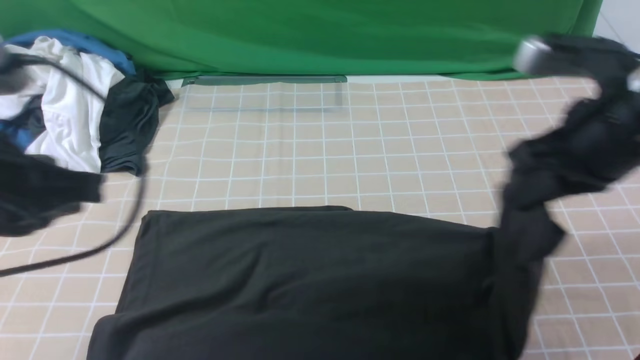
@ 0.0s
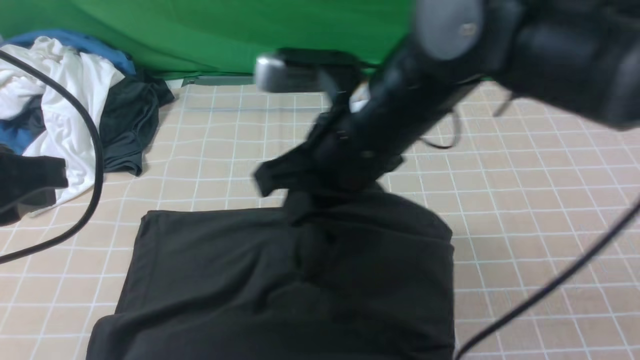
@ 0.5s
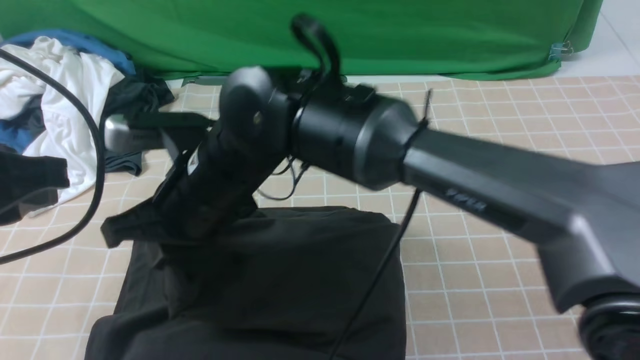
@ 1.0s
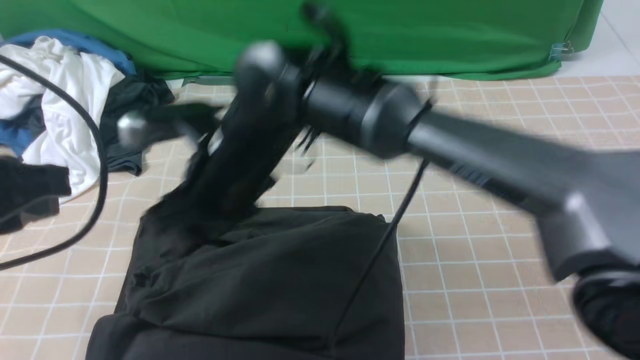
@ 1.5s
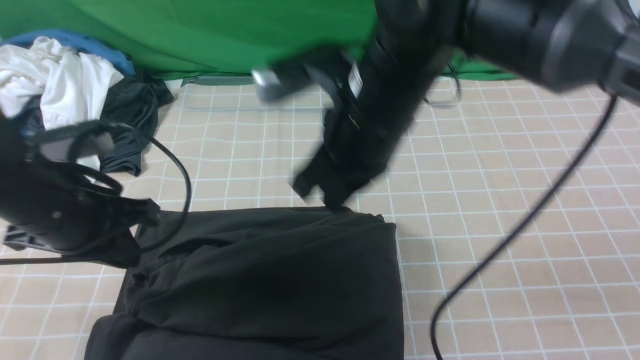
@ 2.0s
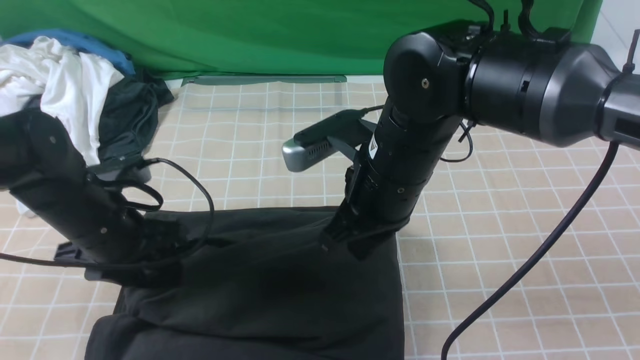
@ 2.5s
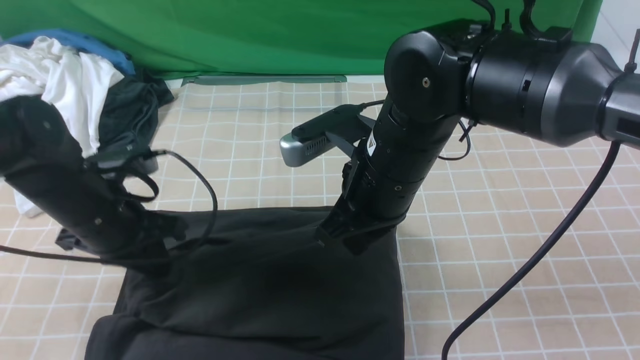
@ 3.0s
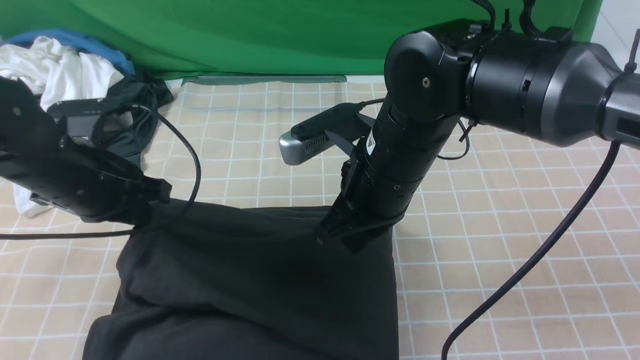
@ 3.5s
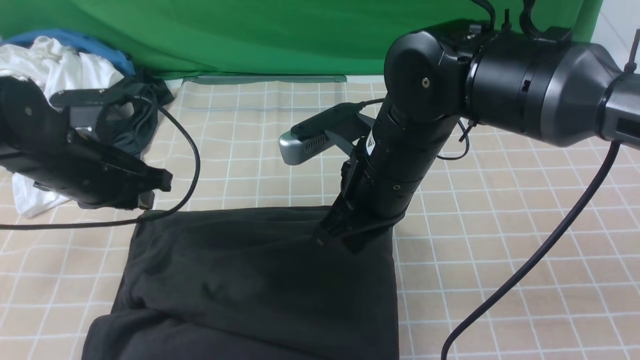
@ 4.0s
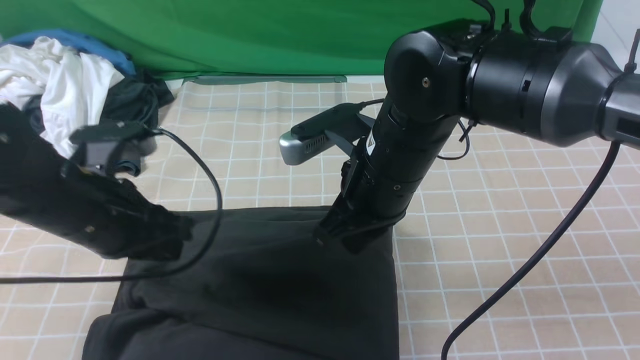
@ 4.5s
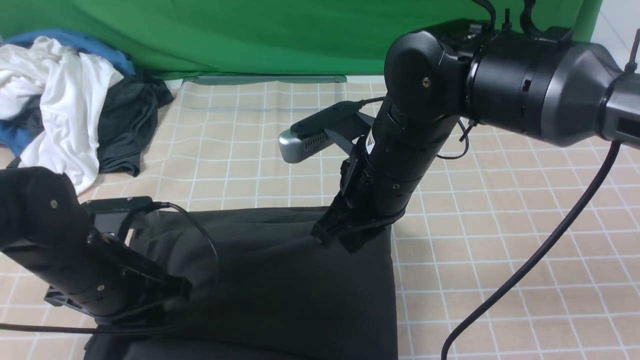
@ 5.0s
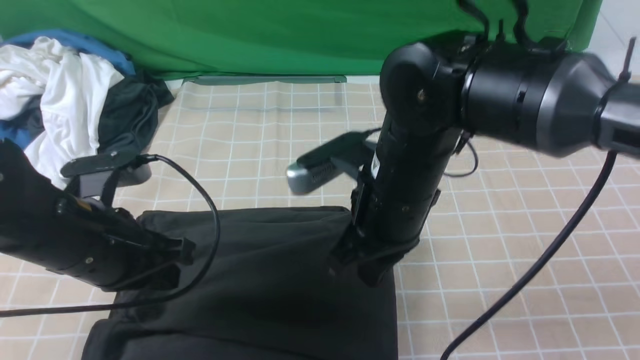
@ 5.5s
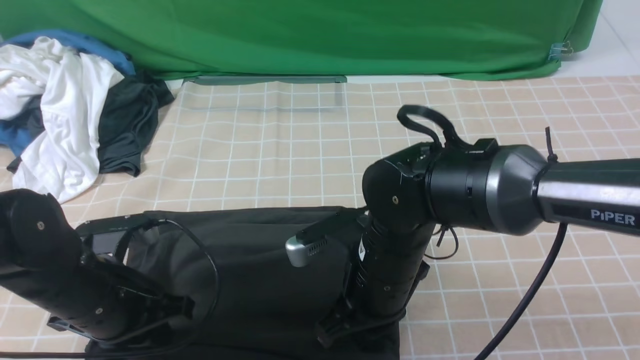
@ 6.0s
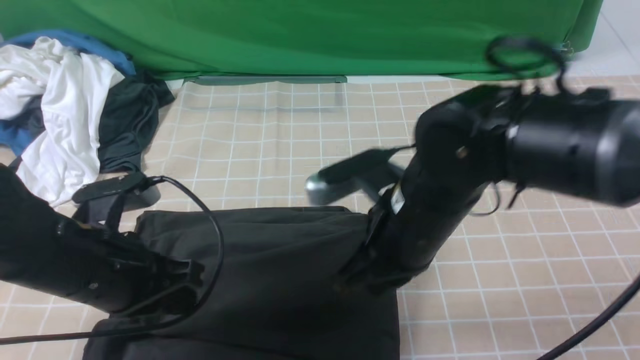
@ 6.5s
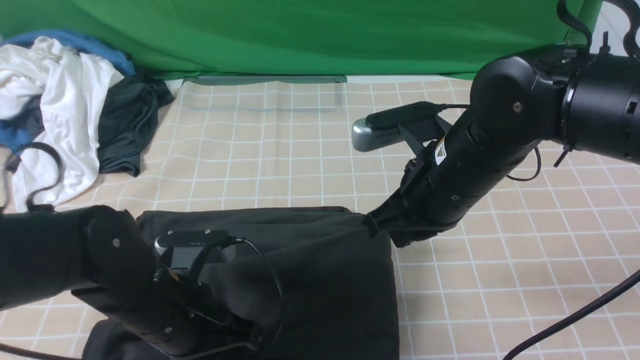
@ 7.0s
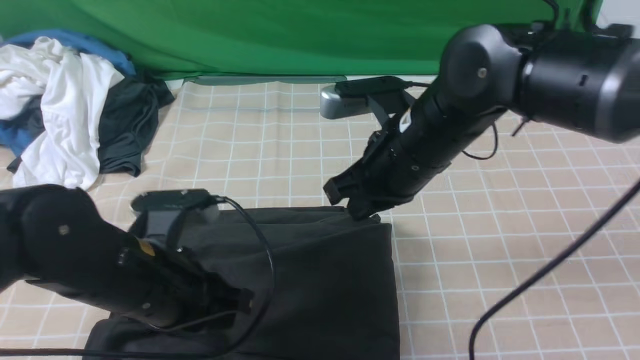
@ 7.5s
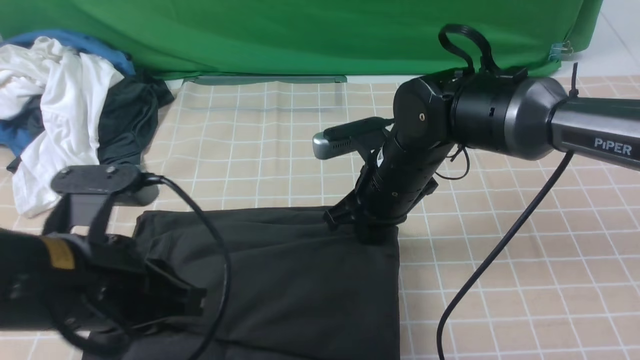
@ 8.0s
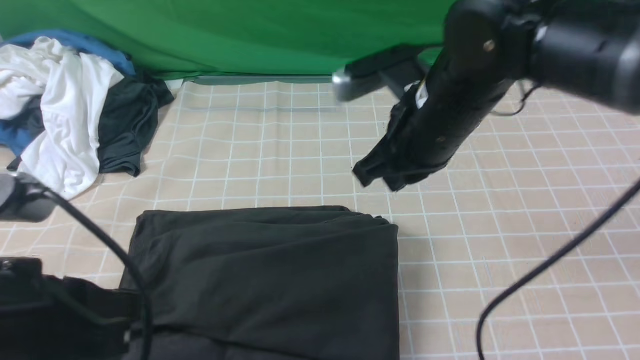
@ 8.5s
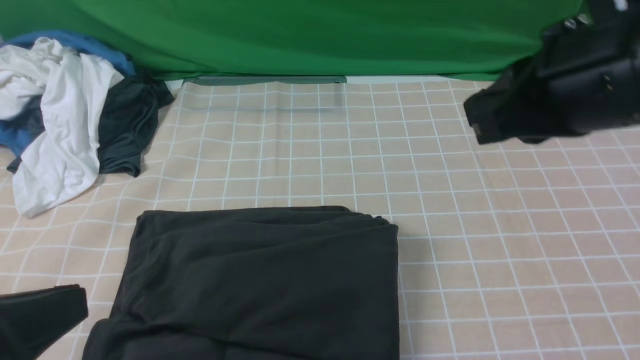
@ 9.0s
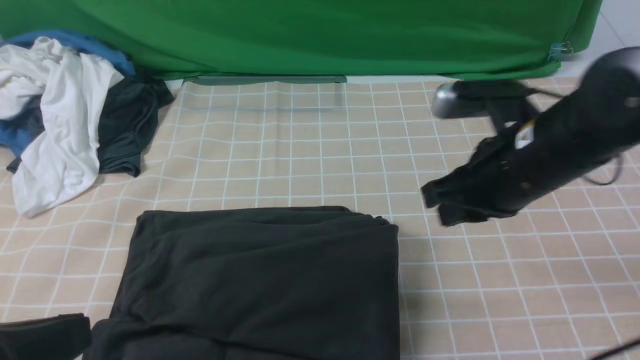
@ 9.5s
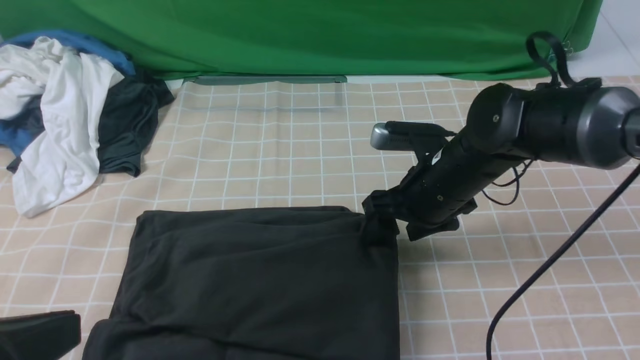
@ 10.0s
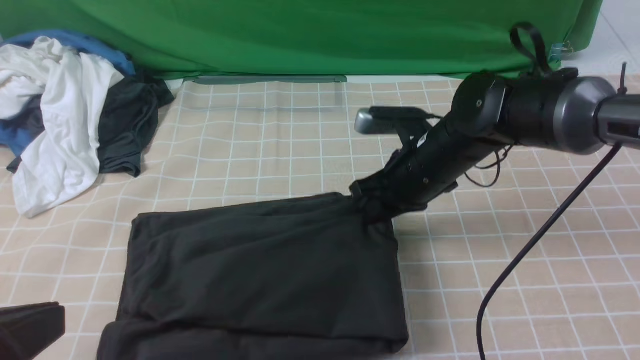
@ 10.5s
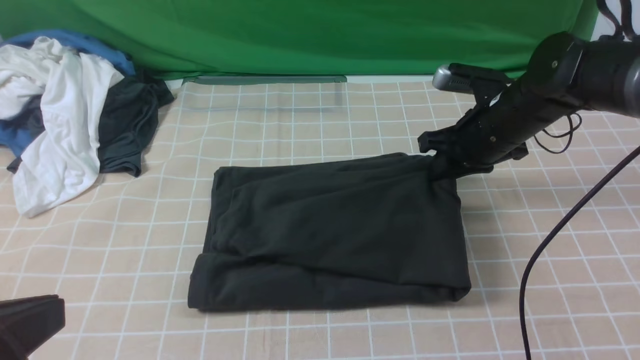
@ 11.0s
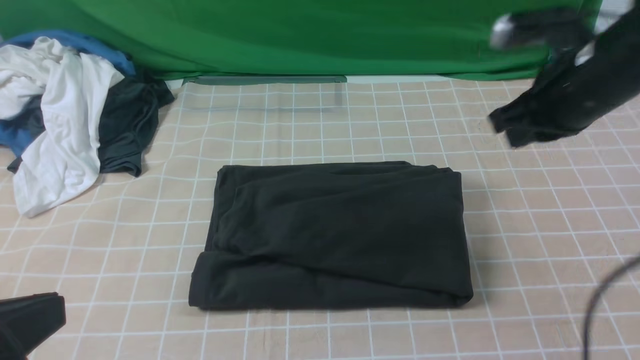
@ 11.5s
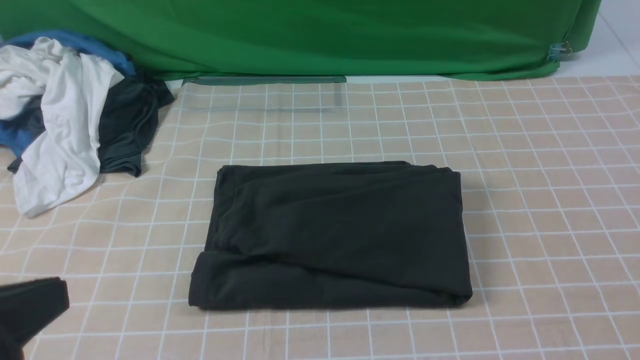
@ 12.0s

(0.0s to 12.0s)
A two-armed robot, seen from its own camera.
0.0s - 2.0s: The left gripper goes approximately 10 cm downward and forward. Meanwhile the right gripper moves to the left, roughly 15 cm, and opens, then closes once more.
2.0s - 4.0s: The left gripper opens, then closes once more.
4.0s - 6.0s: The left gripper travels backward by some 10 cm; the right gripper goes some 10 cm downward.
6.0s - 8.0s: The right gripper is displaced forward by some 10 cm; the left gripper shifts some 10 cm upward and backward.
8.0s - 10.0s: The right gripper is displaced to the right by approximately 5 cm, reaches approximately 15 cm upward, then returns, and opens its fingers. Meanwhile the left gripper shifts roughly 15 cm backward, upward and to the left.
10.0s - 12.0s: The right gripper moves backward, upward and to the right, about 35 cm, and closes up.

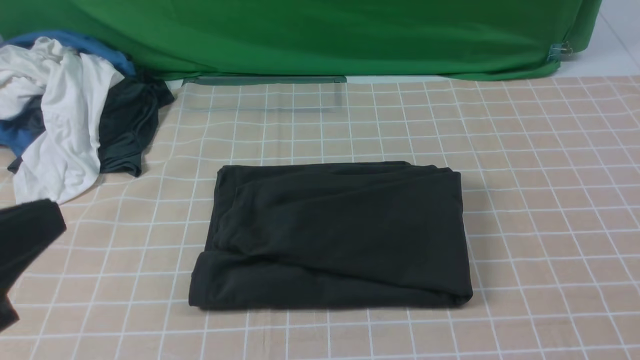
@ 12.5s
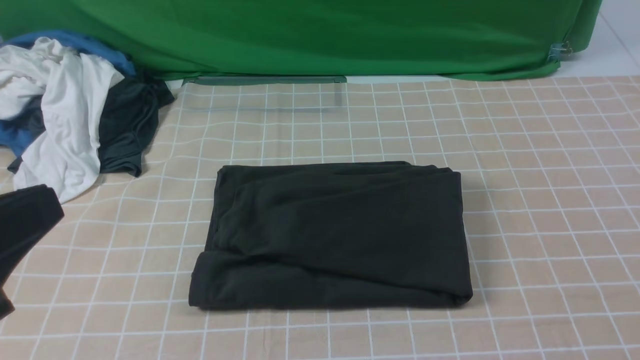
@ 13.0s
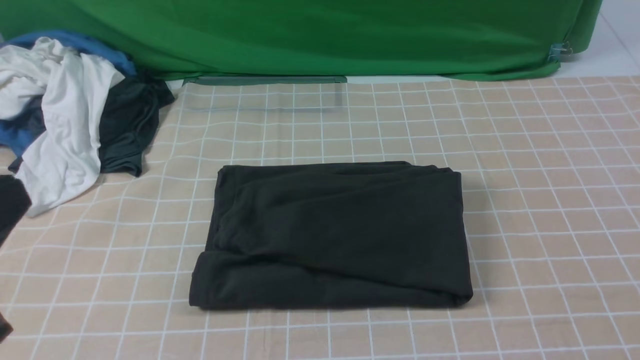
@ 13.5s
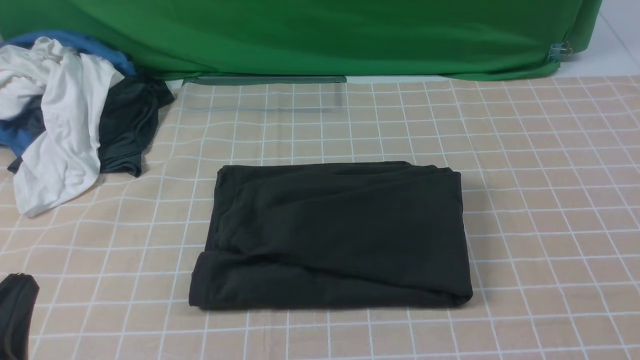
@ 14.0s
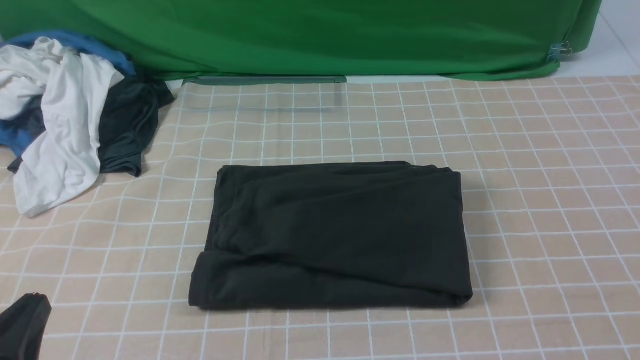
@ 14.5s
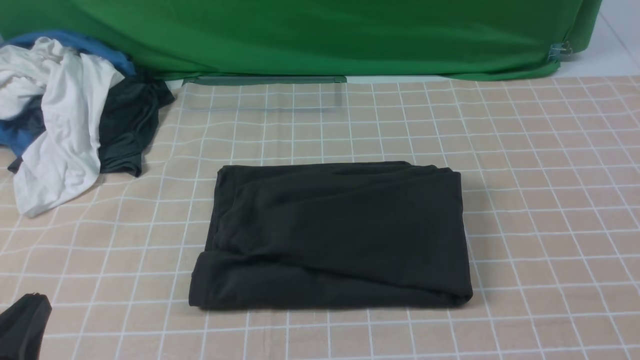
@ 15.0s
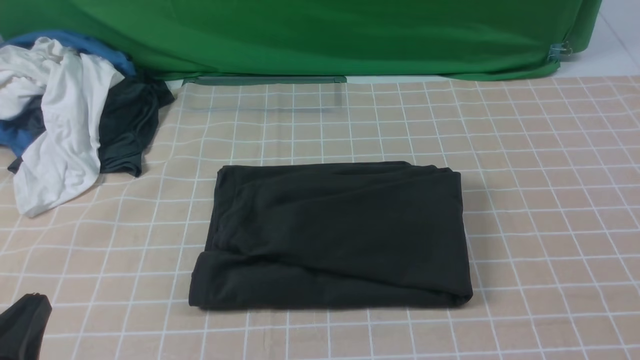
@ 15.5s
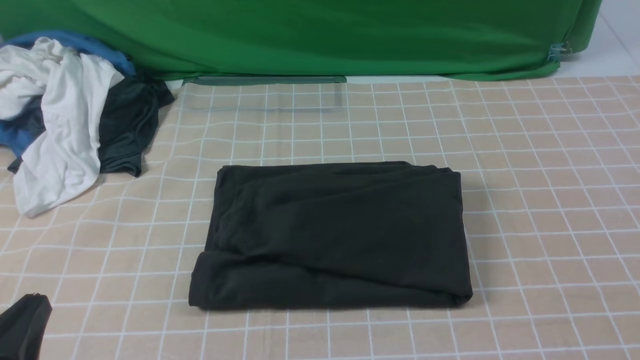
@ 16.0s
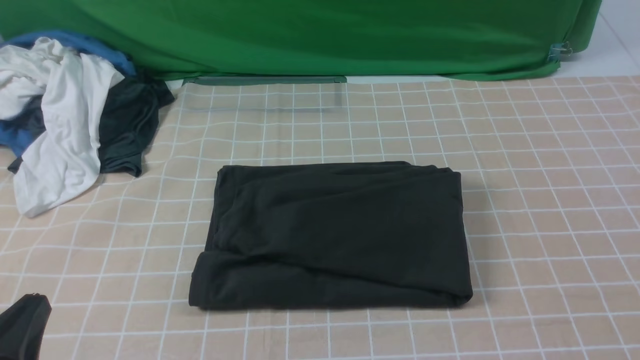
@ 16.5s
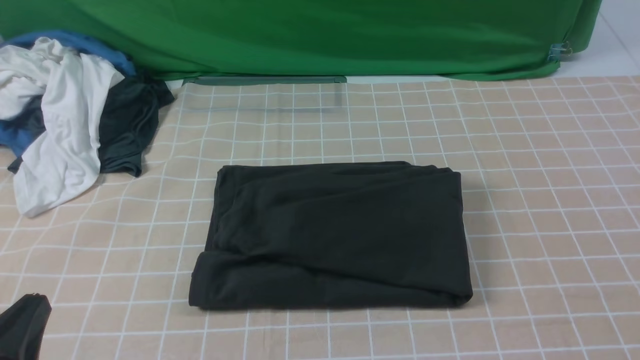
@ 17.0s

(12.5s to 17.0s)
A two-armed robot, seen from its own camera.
12.5s - 14.5s: The left gripper travels downward by roughly 15 cm.

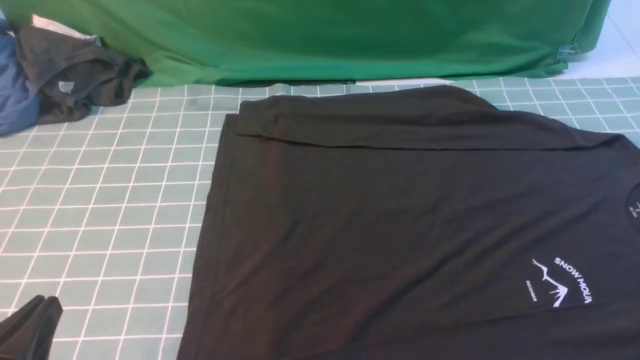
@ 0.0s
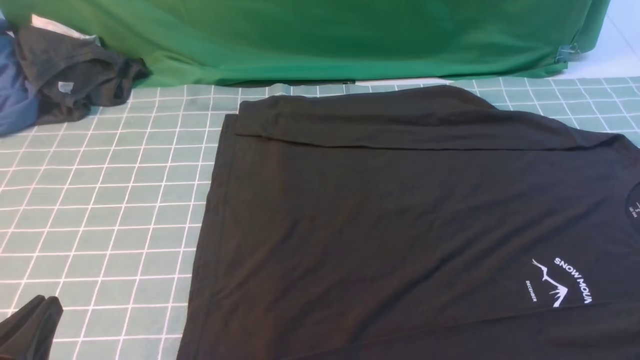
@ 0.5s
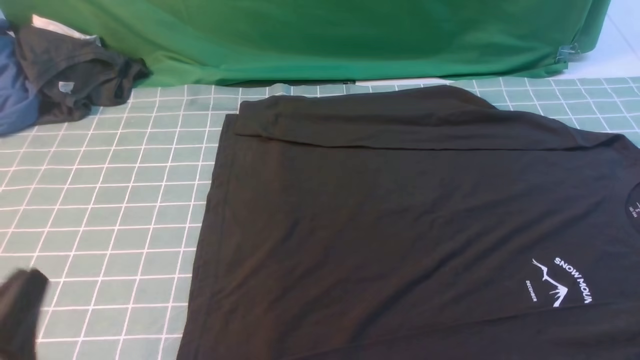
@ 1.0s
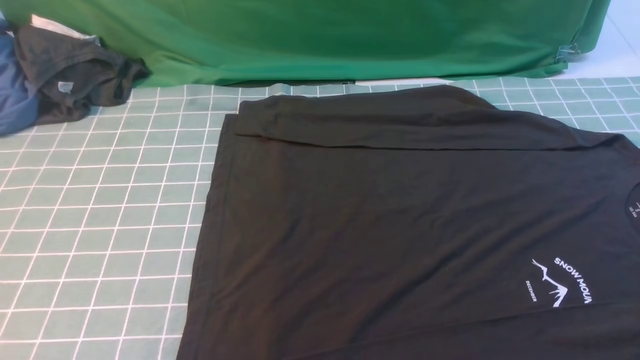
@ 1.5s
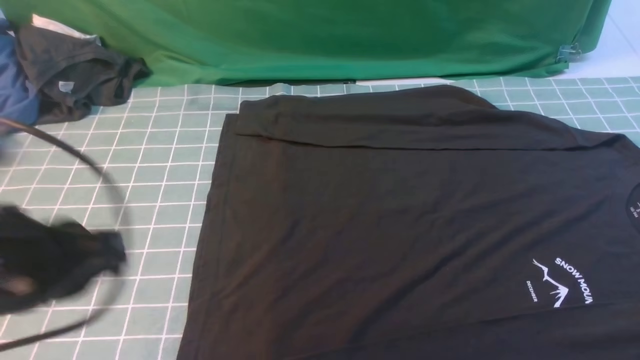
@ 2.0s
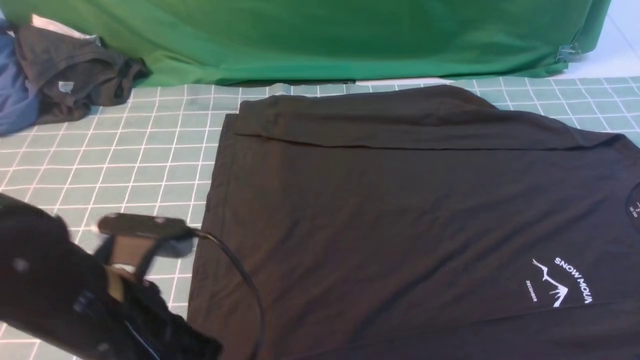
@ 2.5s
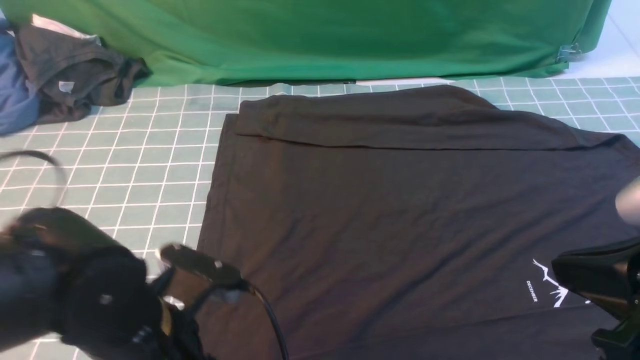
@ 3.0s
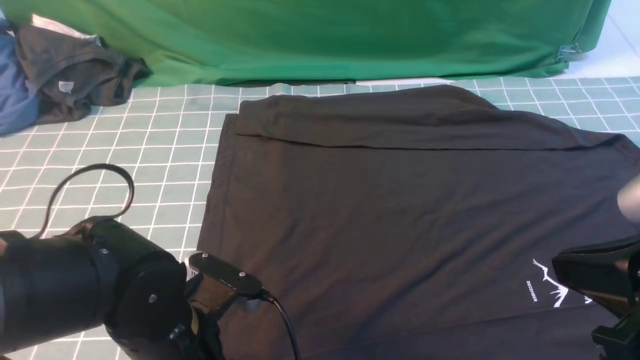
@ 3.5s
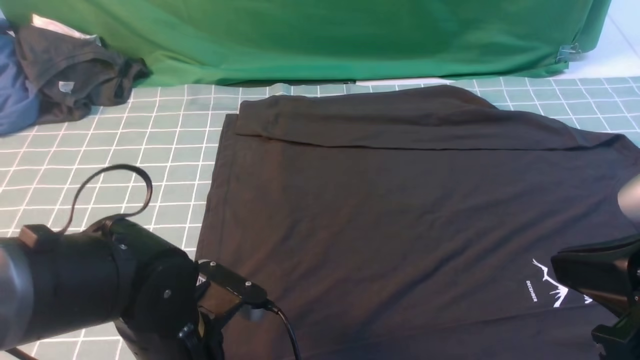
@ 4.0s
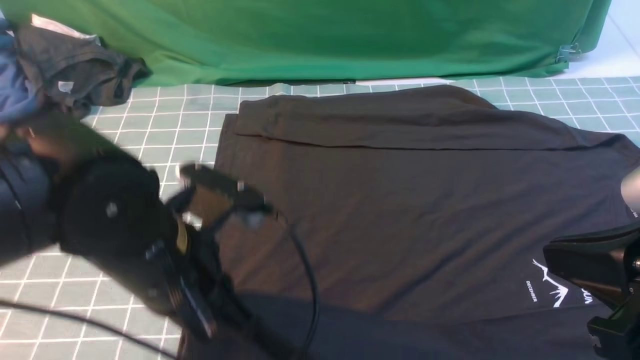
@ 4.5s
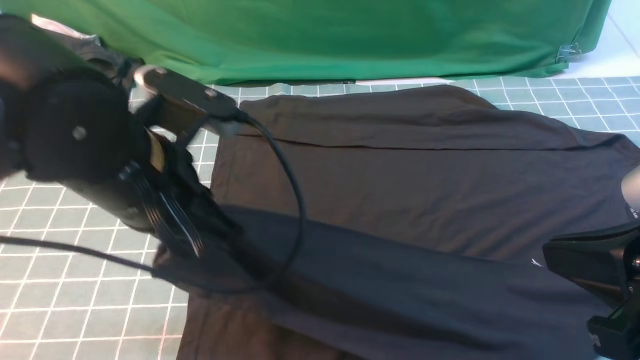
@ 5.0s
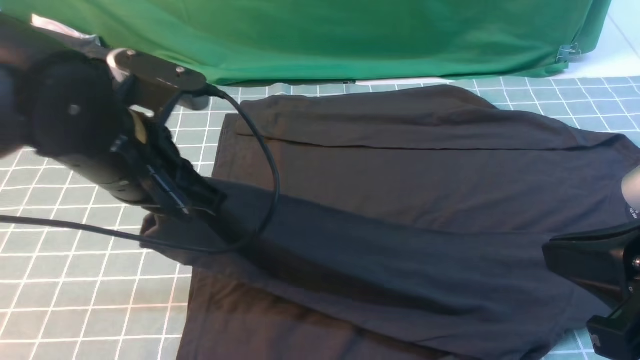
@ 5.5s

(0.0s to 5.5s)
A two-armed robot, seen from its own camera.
Step, 0.0s - 4.0s: use the left arm to clamp the cuff closest to it.
0.0s - 2.0s: The left gripper goes some 15 cm upward and forward.
2.0s - 3.5s: The left gripper moves downward and to the right, some 15 cm, and opens up. The right gripper shifts about 15 cm to the left and upward.
3.5s - 5.5s: The left gripper travels upward and forward by roughly 15 cm, and closes its fingers.
